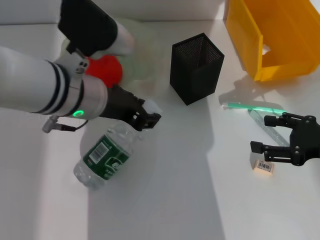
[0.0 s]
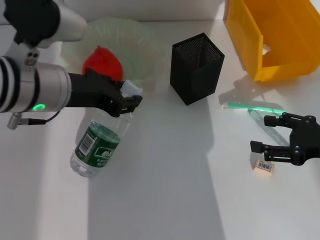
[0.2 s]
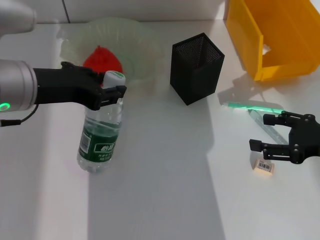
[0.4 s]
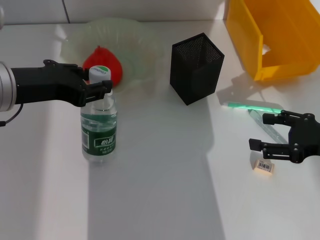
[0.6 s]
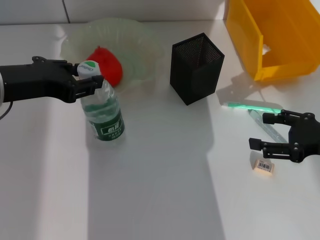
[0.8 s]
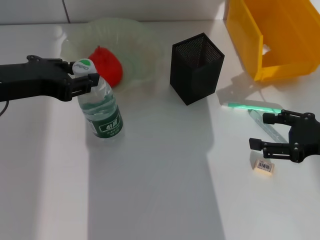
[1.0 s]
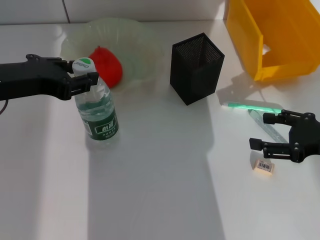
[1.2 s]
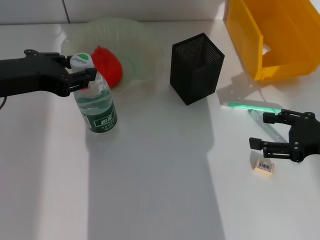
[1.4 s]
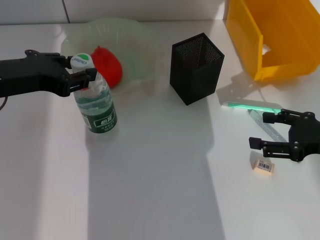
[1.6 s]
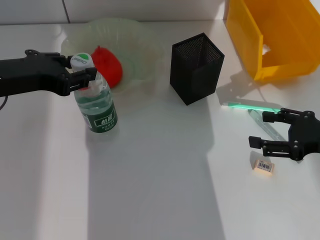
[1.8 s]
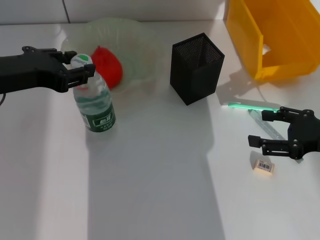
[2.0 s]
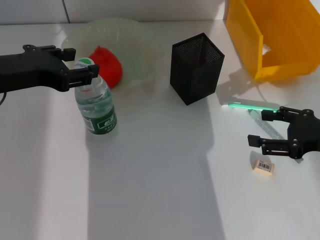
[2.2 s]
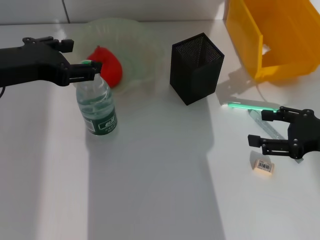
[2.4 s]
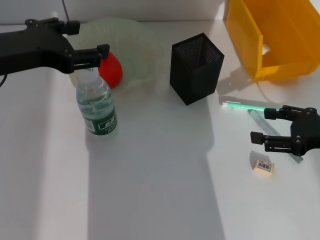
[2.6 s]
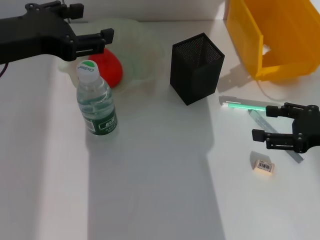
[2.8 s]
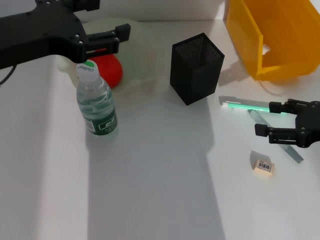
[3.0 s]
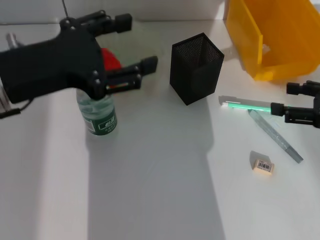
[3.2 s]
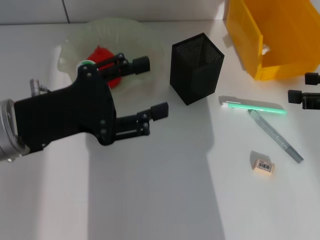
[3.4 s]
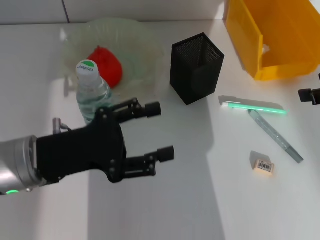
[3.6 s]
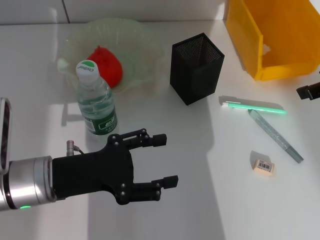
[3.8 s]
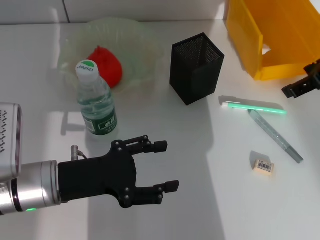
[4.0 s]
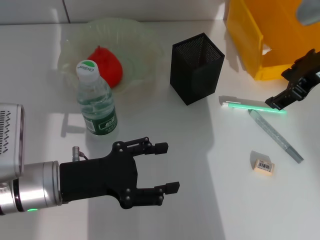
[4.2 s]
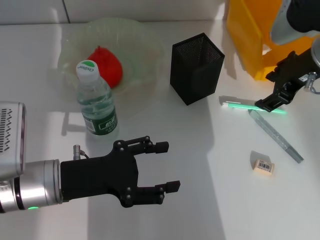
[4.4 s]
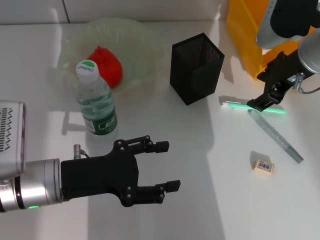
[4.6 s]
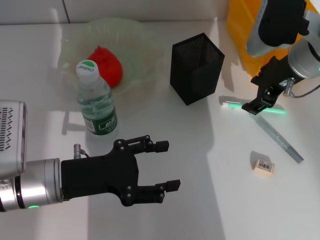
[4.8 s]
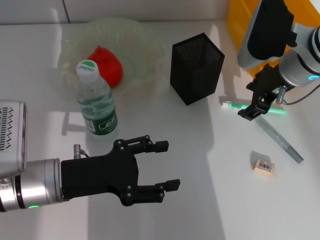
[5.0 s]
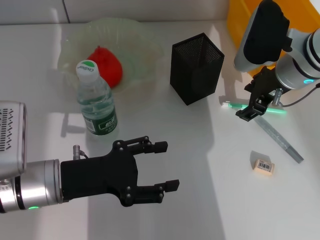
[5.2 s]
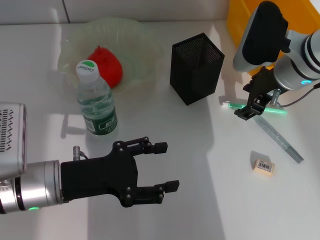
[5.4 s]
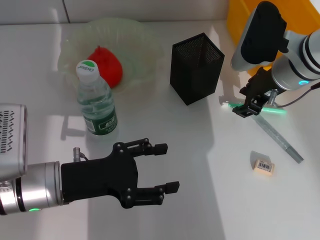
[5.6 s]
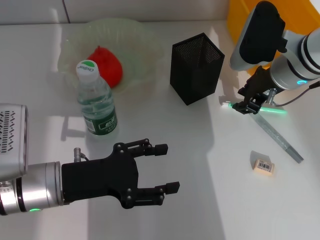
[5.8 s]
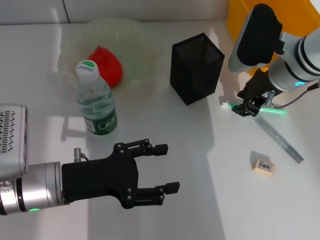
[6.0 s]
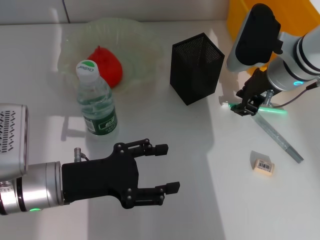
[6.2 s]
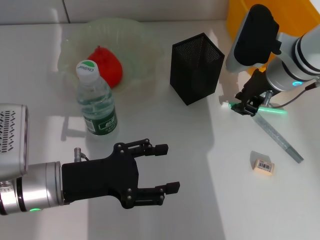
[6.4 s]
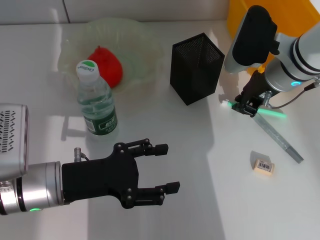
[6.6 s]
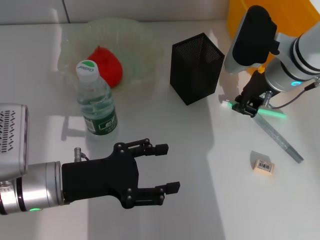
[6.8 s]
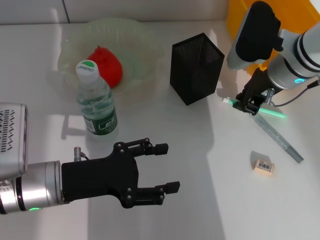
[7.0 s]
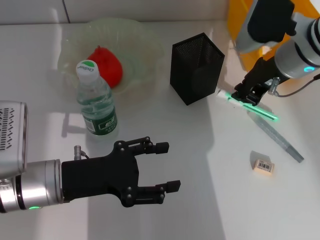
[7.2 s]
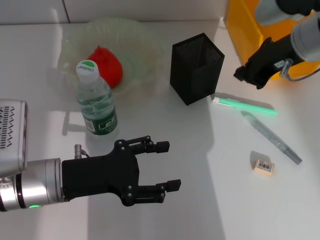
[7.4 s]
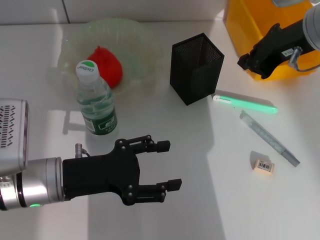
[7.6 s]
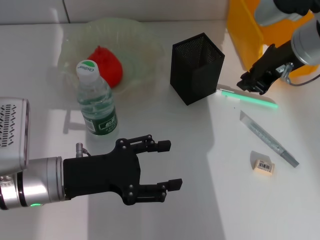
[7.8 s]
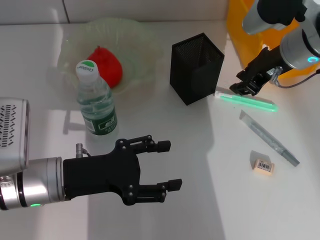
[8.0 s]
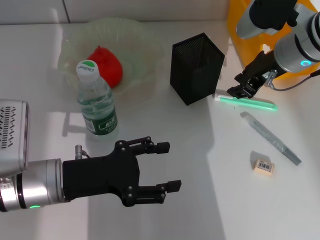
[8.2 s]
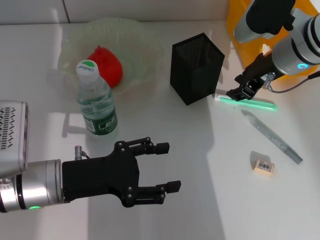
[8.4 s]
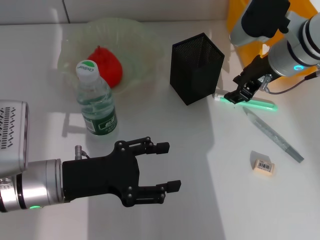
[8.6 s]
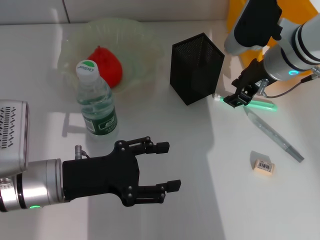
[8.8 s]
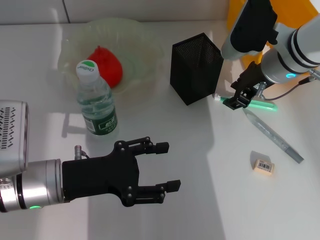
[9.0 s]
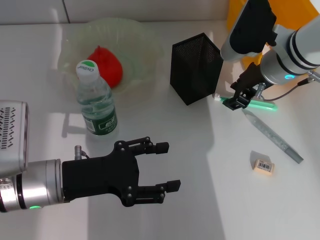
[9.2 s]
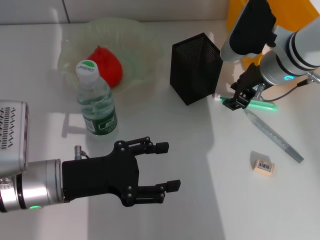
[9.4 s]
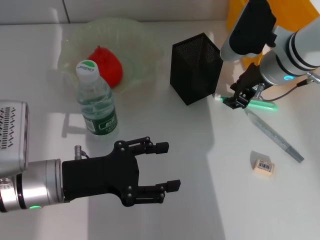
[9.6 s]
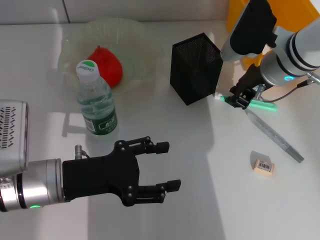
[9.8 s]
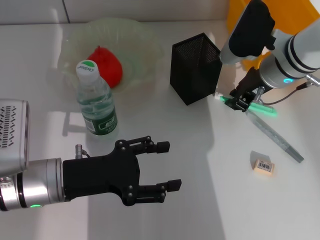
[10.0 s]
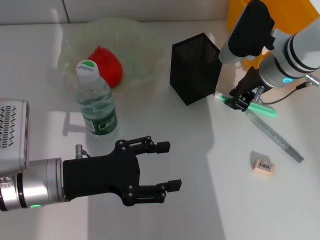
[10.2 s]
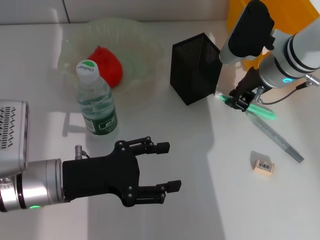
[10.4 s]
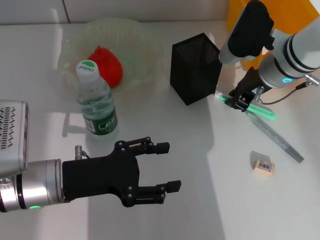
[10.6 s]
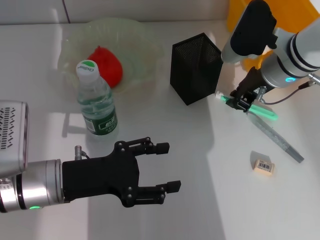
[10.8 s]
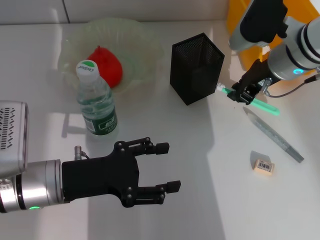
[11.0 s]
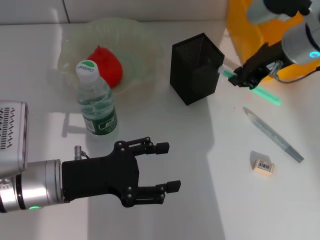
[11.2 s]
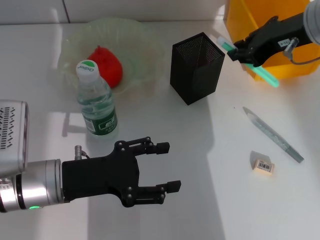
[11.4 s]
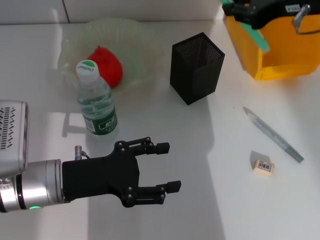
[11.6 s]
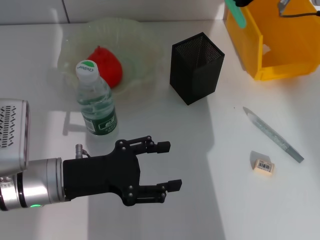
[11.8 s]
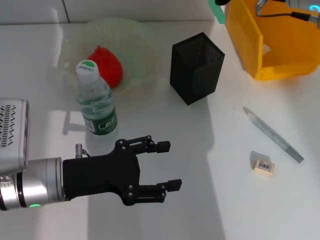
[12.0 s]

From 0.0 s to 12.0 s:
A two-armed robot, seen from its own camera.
Step, from 0.0 s to 2.4 s: Place the water bottle on the table with the left hand.
Step, from 2.6 s to 10.4 s: Grab the blue utility knife with the right hand.
From 0.0 s to 1.6 s: The left gripper moves to the left, roughly 10 cm.
From 1.6 s to 3.0 s: The left gripper opens up.
From 3.0 s to 4.4 s: The left gripper shifts roughly 15 cm downward, while the right gripper goes some 15 cm to the left, forward and upward.
From 4.4 s to 6.0 s: The right gripper travels downward by some 5 cm, and closes.
From 6.0 s to 7.6 s: The right gripper goes some 10 cm upward, and closes.
From 7.6 s to 9.0 s: The right gripper heads downward, covering some 10 cm, and opens.
From 9.0 s to 10.4 s: Both grippers stay about where they are.
From 10.4 s to 12.0 s: The right gripper travels upward by some 10 cm.

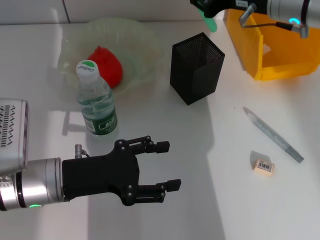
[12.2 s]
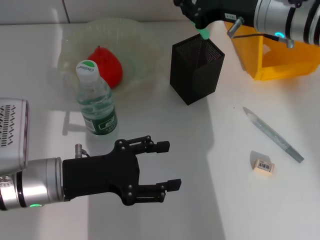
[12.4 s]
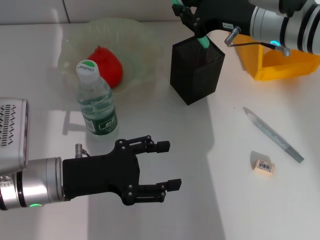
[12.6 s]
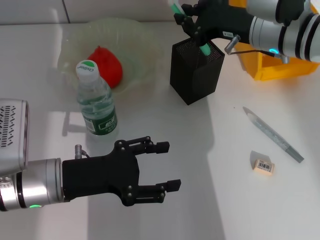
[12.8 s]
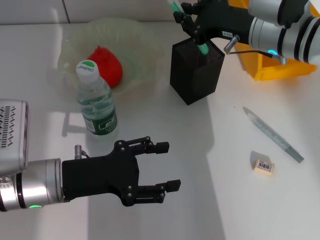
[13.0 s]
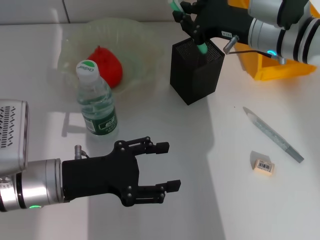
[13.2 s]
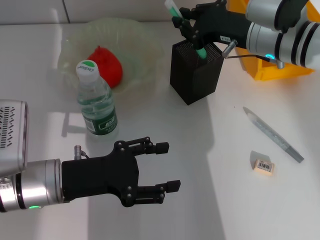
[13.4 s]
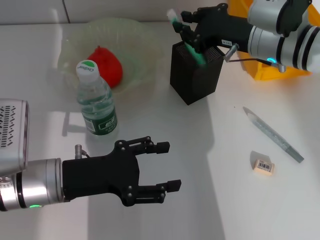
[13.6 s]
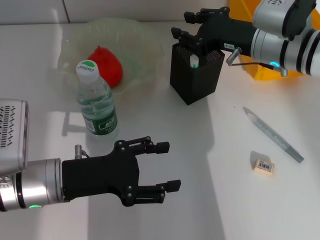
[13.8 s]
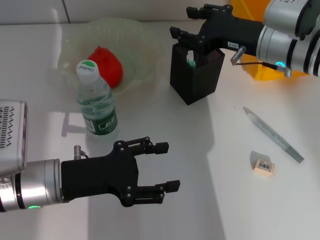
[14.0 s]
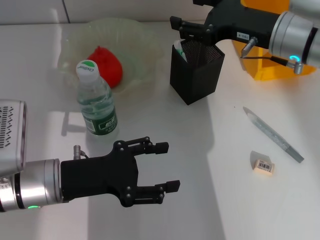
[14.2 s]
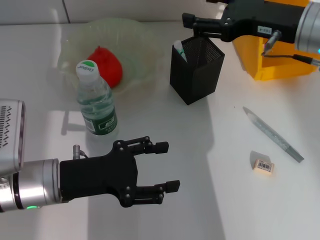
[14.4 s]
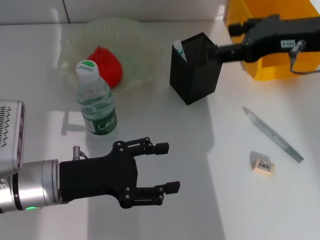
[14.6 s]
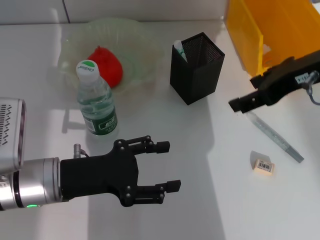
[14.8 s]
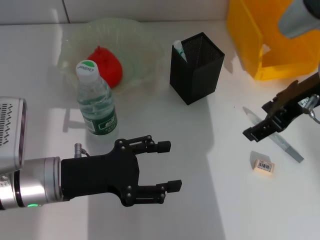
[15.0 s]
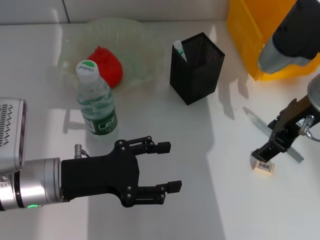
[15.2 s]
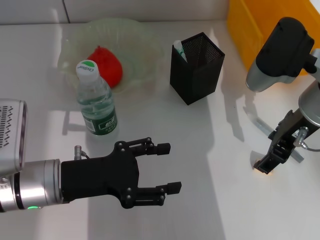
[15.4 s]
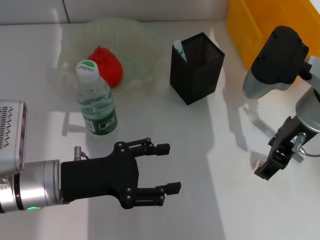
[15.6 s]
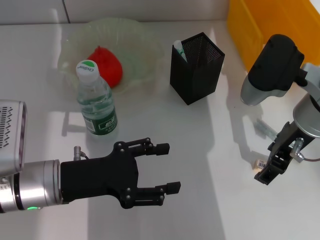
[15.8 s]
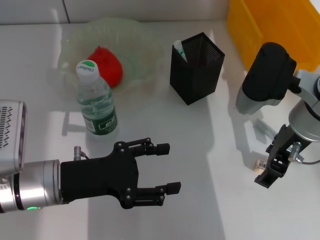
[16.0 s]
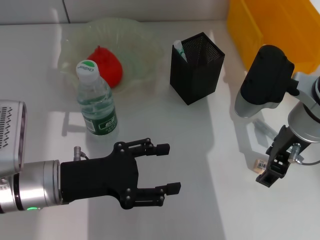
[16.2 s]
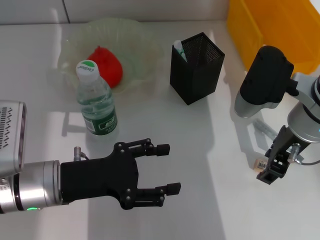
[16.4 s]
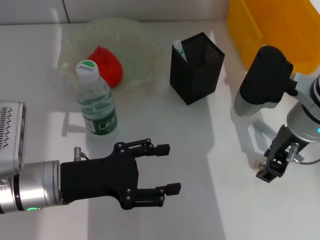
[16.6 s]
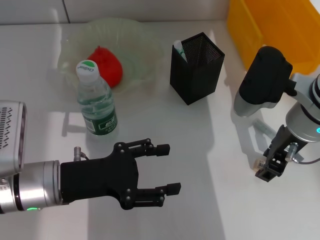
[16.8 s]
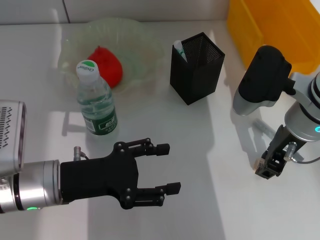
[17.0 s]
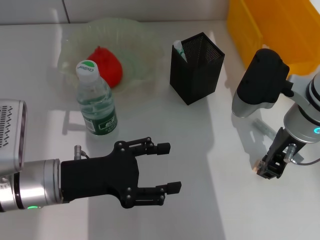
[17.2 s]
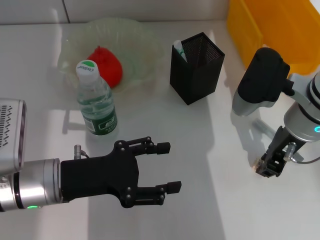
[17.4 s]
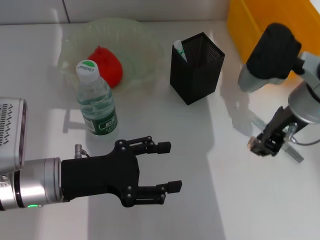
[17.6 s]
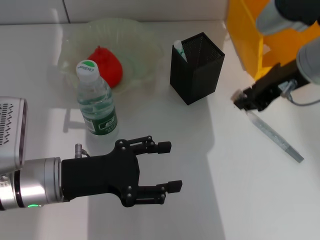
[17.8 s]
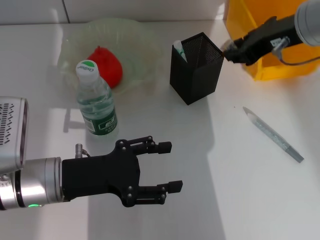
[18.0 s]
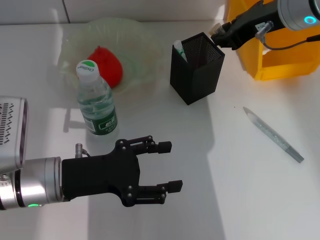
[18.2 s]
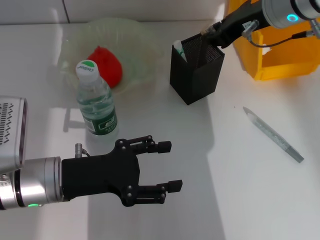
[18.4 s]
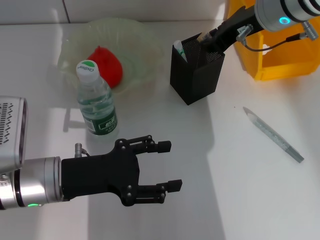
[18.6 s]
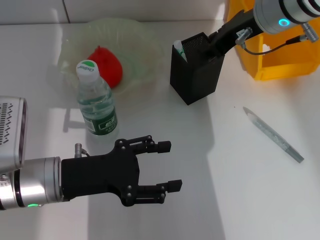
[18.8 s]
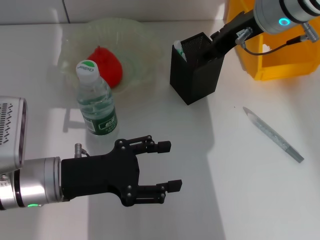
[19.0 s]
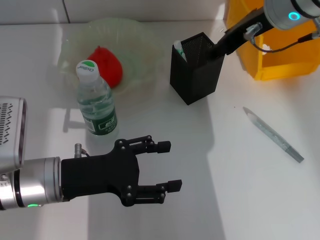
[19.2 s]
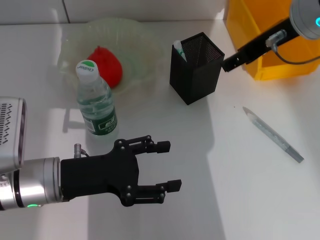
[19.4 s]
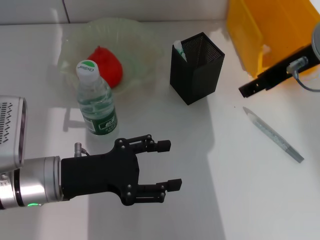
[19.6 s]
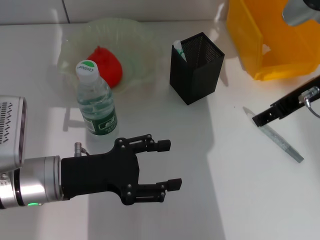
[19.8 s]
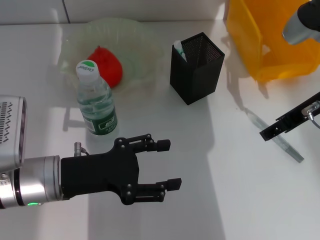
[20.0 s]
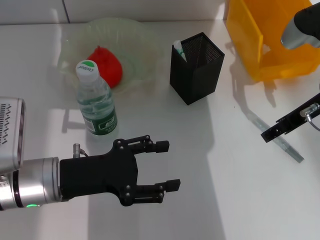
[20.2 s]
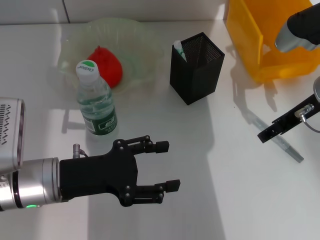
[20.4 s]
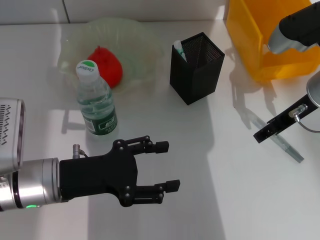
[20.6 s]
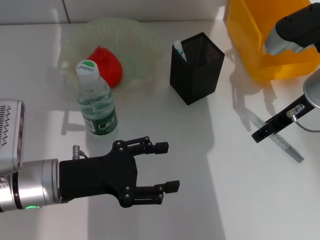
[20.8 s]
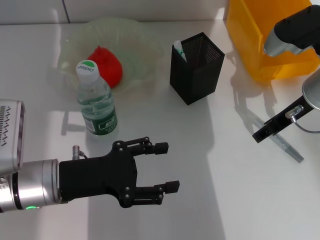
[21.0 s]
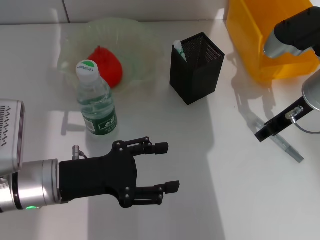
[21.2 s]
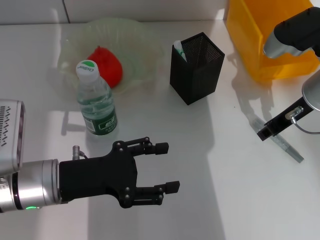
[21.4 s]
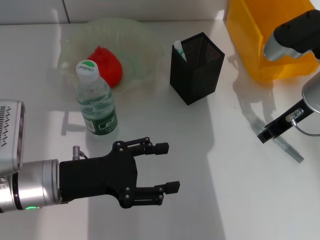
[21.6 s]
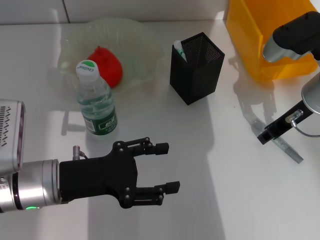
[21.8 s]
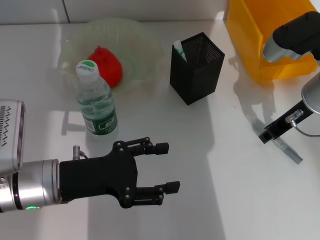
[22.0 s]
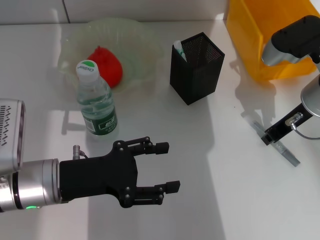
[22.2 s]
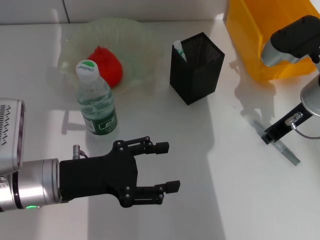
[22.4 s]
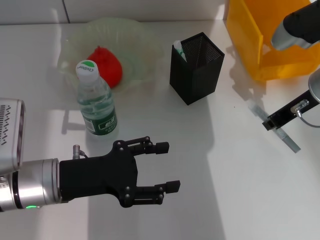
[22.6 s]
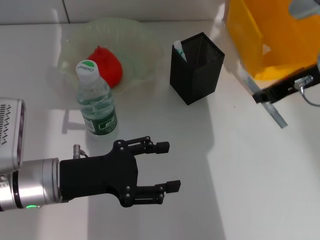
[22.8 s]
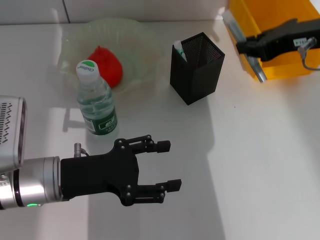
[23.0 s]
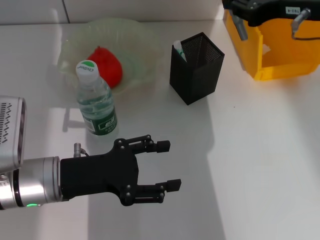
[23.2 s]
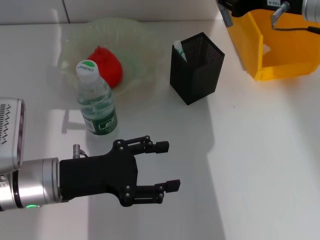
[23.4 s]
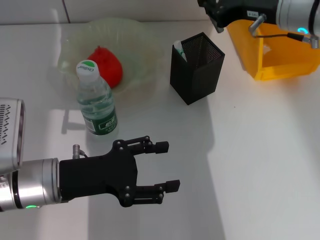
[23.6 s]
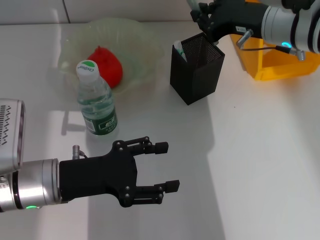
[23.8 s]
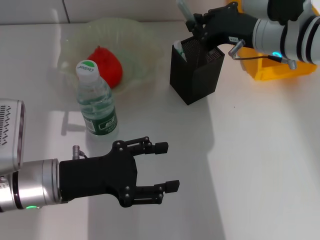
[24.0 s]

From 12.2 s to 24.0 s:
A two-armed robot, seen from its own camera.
Step, from 12.2 s to 14.0 s: Place the blue utility knife into the pen holder with the right hand.
Step, from 14.2 s to 17.0 s: Grab the eraser with the right hand.
Step, from 17.2 s to 19.0 s: Put the eraser into the pen holder with the right hand.
Step, from 19.4 s to 22.0 s: Grab the gray glue with the right hand.
From 12.2 s to 13.6 s: The right gripper shifts approximately 5 cm downward.
From 13.6 s to 15.2 s: The right gripper goes roughly 10 cm backward and upward, and opens.
From 15.2 s to 16.6 s: The right gripper changes place by some 5 cm.
From 16.6 s to 18.2 s: The right gripper heads upward and forward, covering approximately 10 cm, and closes its fingers.
From 18.2 s to 19.6 s: The right gripper heads backward, covering roughly 5 cm, and opens.
From 19.6 s to 21.0 s: The right gripper shifts roughly 10 cm downward.
From 21.0 s to 22.6 s: The right gripper closes.
From 22.6 s to 24.0 s: The right gripper heads to the left, covering some 5 cm, and travels upward and back again, approximately 10 cm each way.
